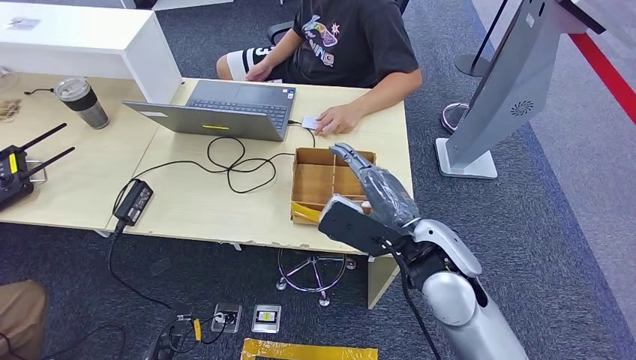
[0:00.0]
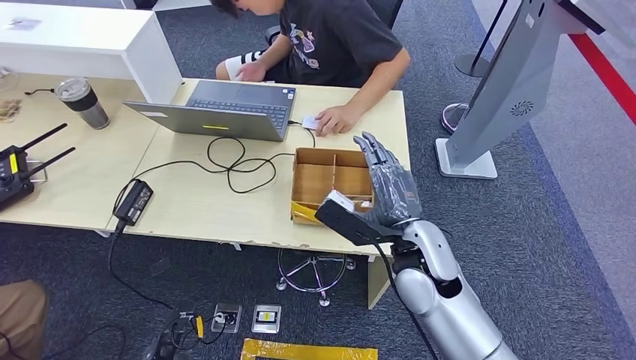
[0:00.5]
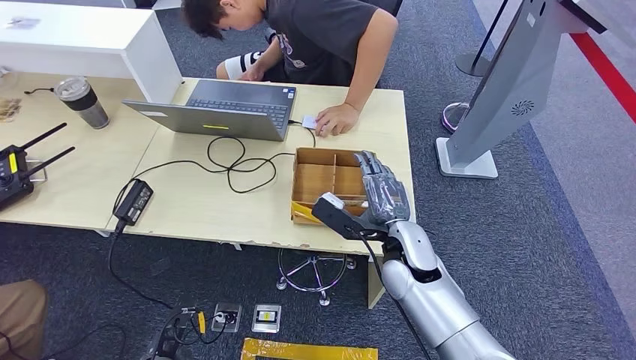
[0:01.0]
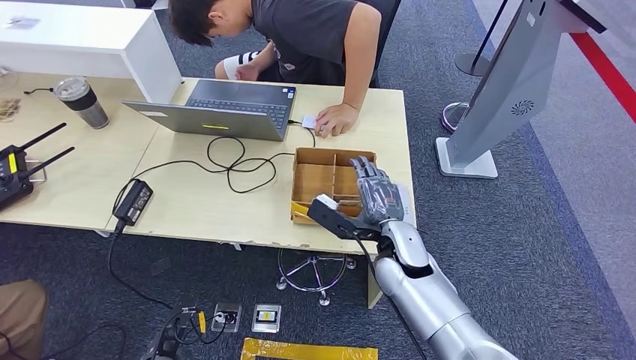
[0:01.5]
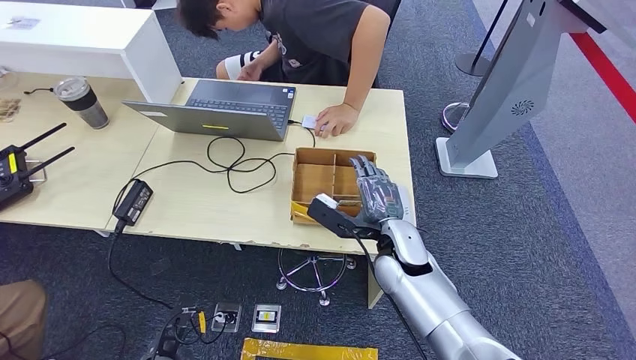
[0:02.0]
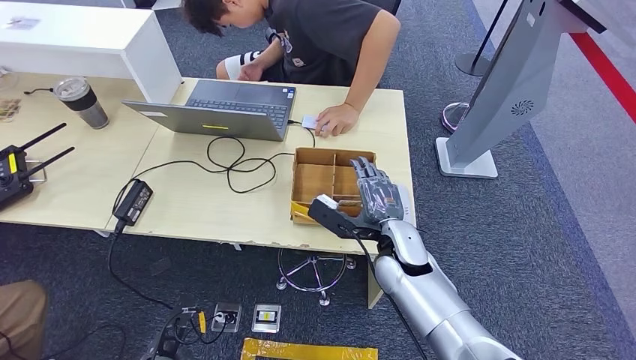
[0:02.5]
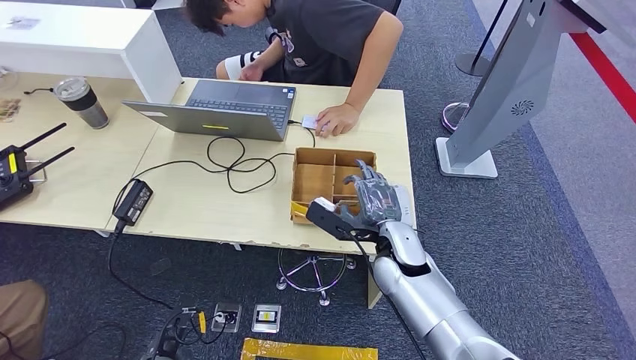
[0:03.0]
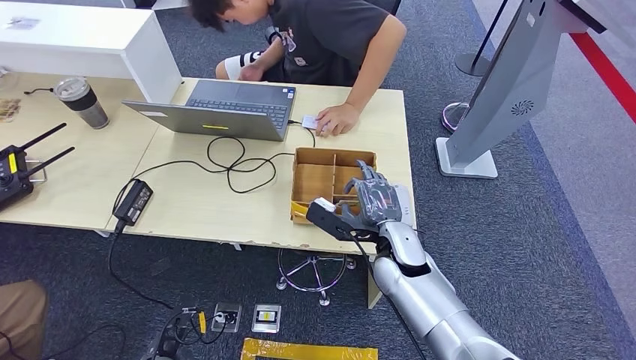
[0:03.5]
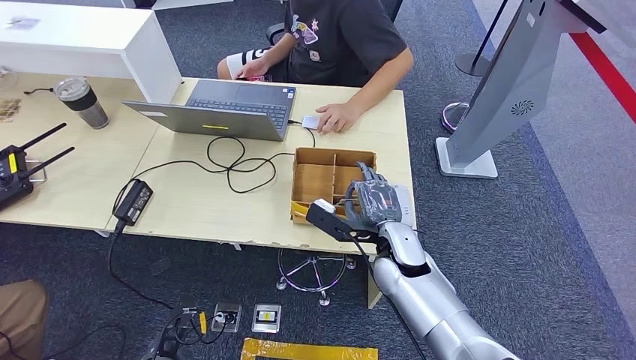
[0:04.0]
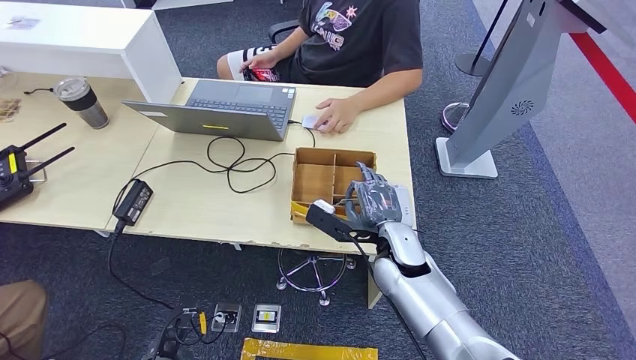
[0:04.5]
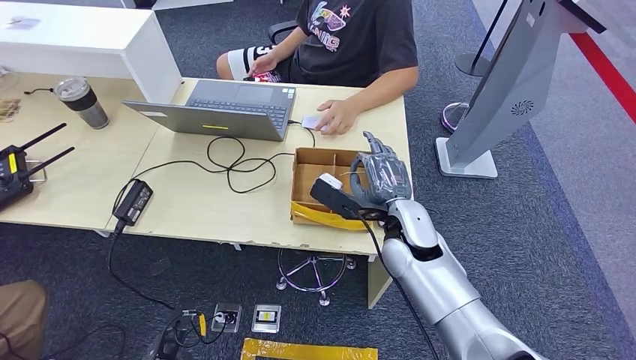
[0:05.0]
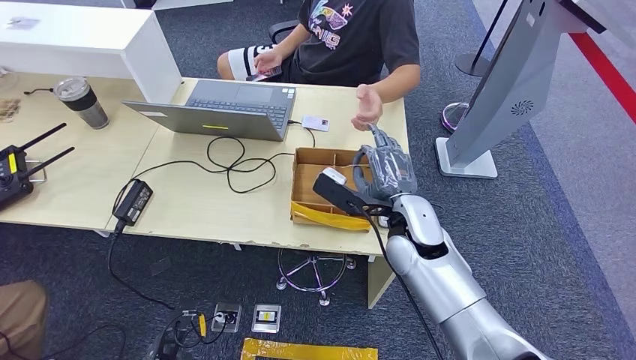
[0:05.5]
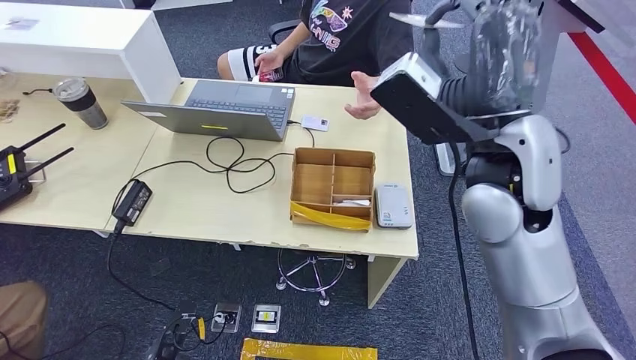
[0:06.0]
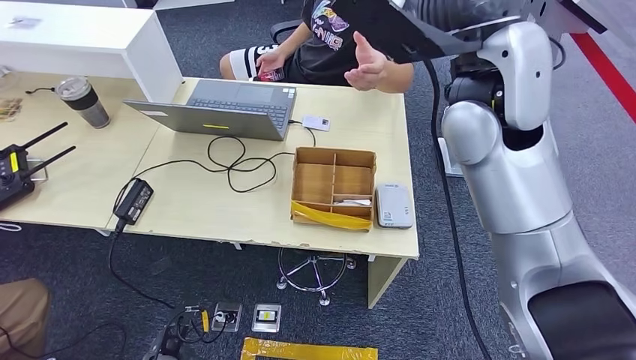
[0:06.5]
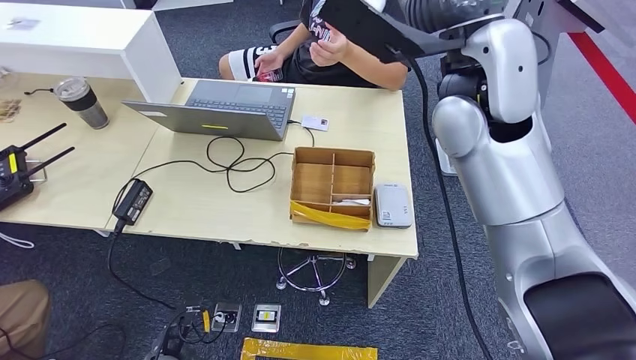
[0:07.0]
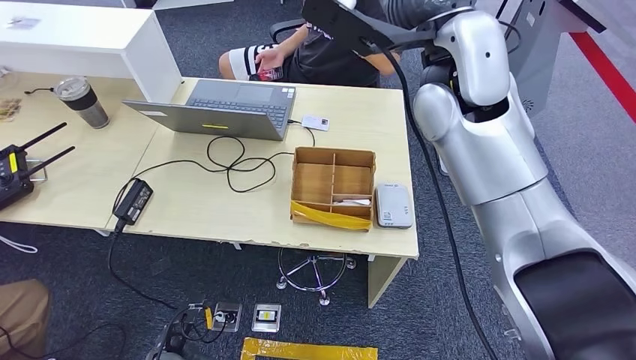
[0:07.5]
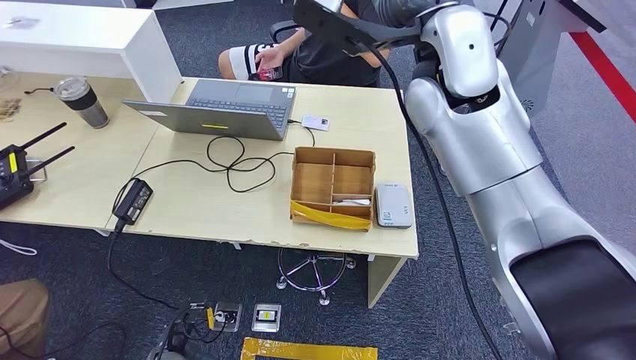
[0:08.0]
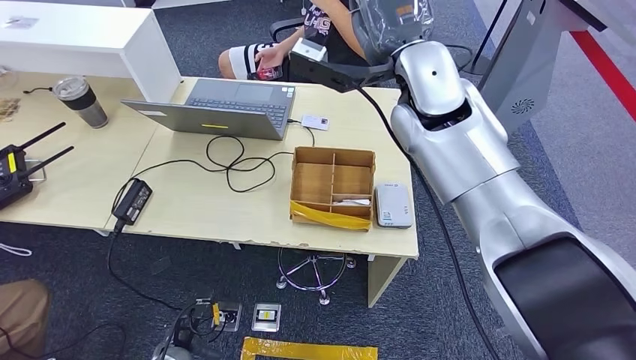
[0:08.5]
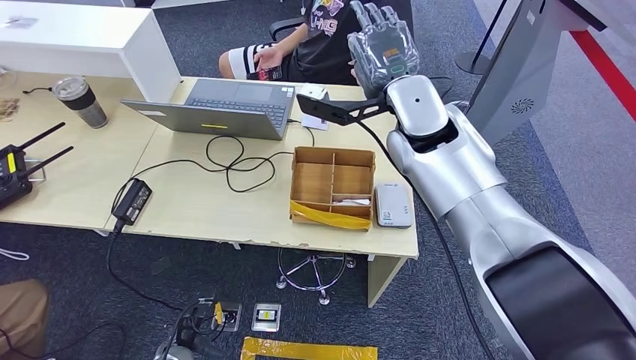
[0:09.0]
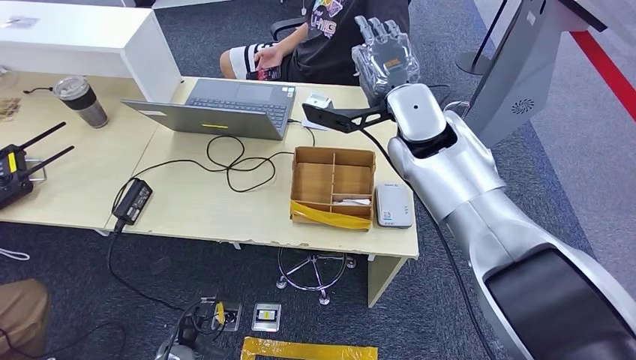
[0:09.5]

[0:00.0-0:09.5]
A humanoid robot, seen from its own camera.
Step, 0:00.0 to 0:05.0: Pick up the room key from the key card box.
Step, 0:05.5 to 0:09.5: Hand the room key to the person.
0:00.0 to 0:02.0: The right hand shifts some 10 cm downward.
0:02.0 to 0:04.0: Neither hand changes place.
0:04.0 to 0:05.5: The right hand moves upward, roughly 5 cm.
